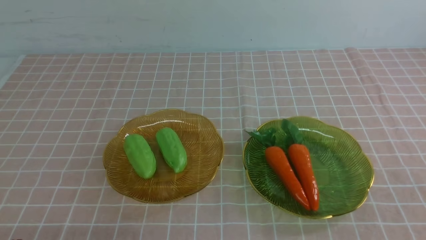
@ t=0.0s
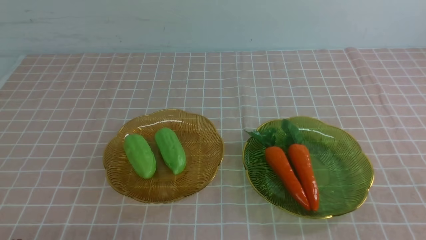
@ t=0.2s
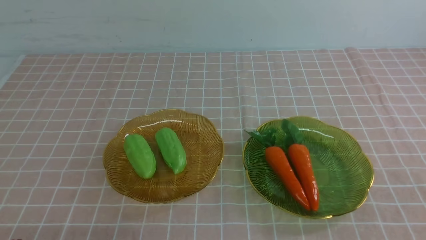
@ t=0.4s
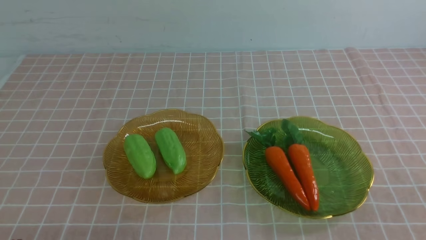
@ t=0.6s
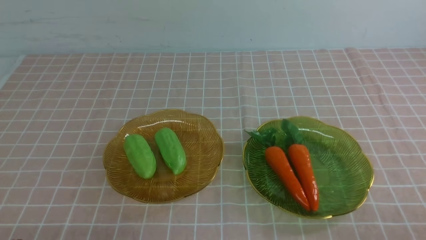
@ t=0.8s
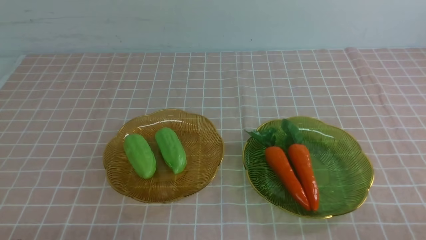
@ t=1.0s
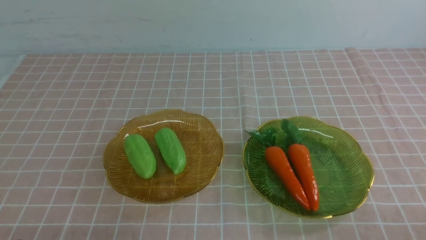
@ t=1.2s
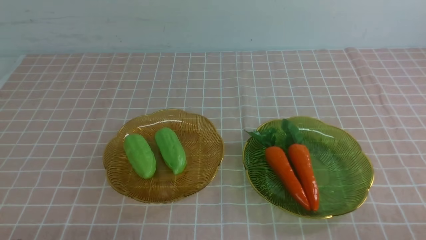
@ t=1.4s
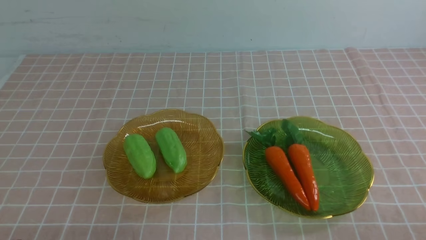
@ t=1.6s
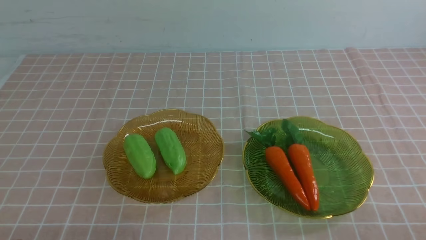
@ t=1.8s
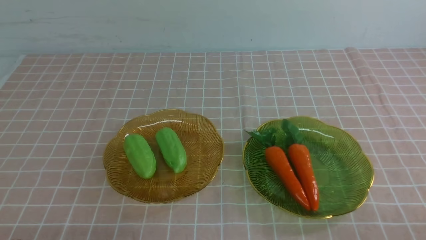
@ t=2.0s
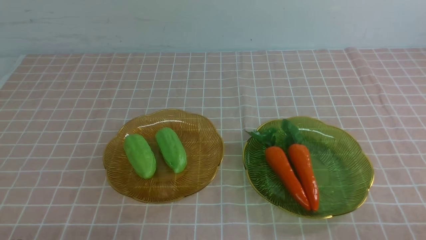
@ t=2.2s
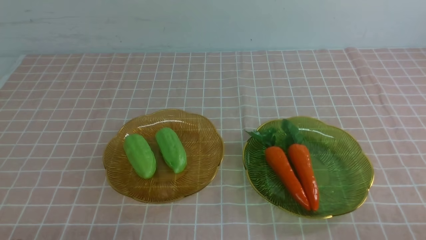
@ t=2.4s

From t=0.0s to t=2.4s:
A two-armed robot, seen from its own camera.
From t=1.2s to t=2.4s: The two grippers keep their place.
